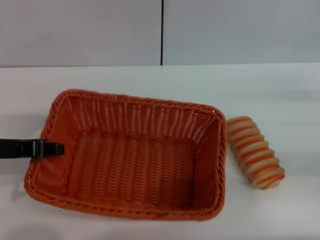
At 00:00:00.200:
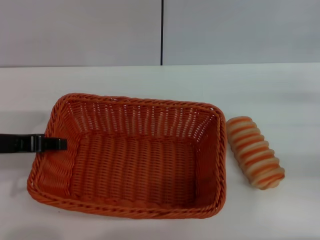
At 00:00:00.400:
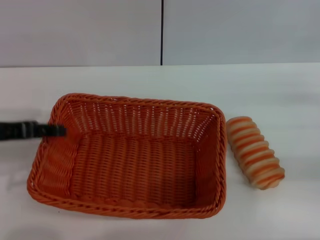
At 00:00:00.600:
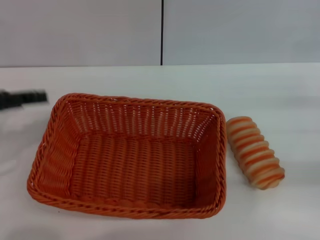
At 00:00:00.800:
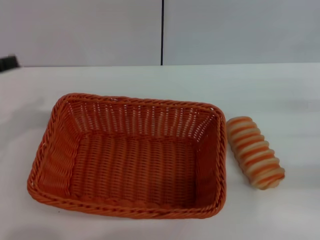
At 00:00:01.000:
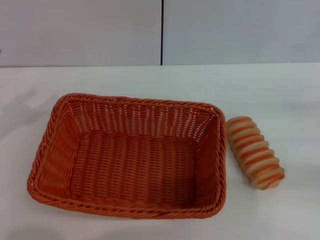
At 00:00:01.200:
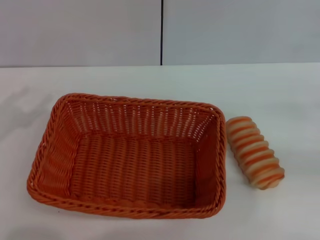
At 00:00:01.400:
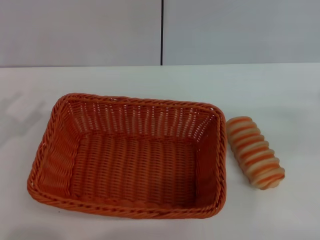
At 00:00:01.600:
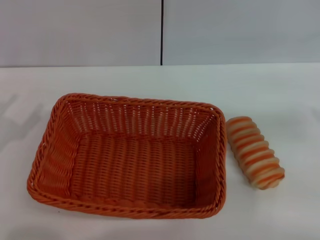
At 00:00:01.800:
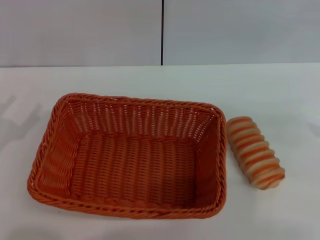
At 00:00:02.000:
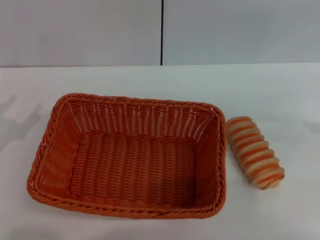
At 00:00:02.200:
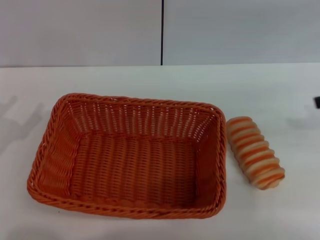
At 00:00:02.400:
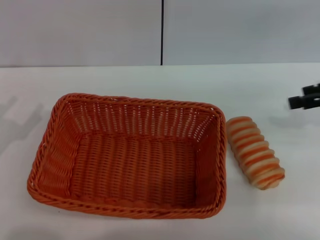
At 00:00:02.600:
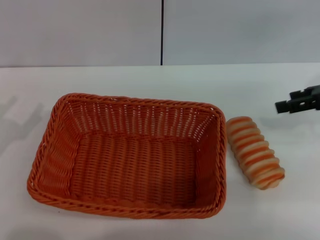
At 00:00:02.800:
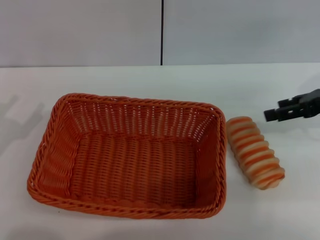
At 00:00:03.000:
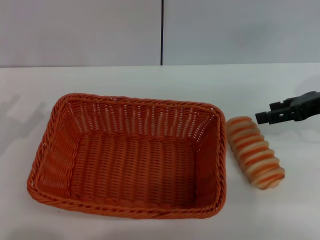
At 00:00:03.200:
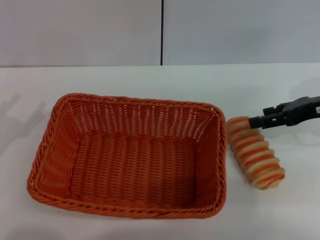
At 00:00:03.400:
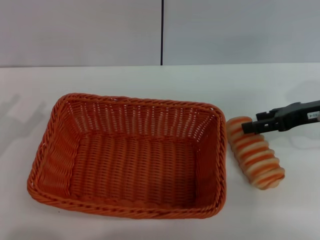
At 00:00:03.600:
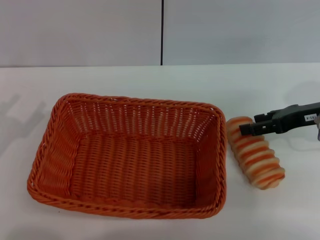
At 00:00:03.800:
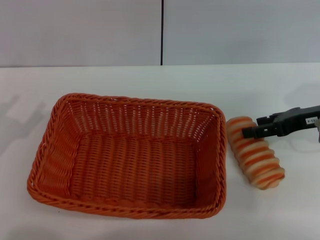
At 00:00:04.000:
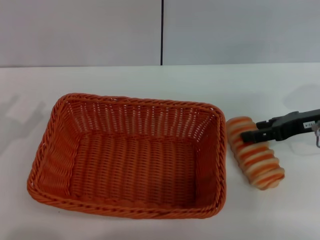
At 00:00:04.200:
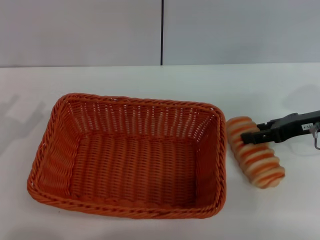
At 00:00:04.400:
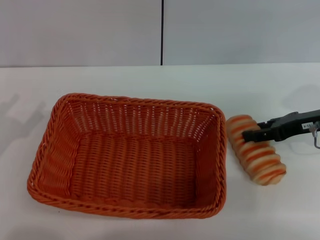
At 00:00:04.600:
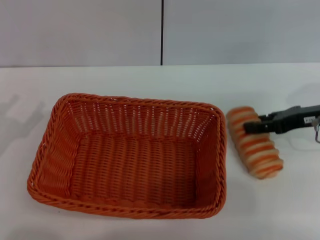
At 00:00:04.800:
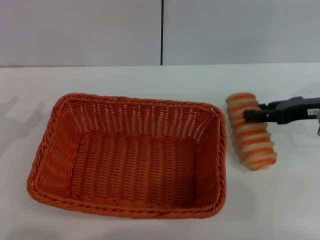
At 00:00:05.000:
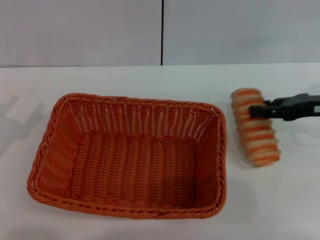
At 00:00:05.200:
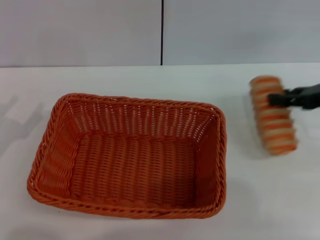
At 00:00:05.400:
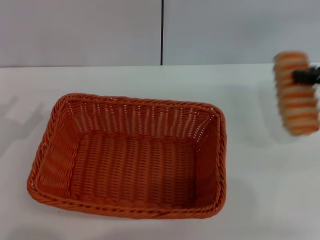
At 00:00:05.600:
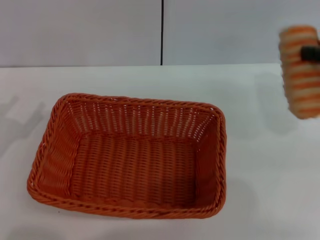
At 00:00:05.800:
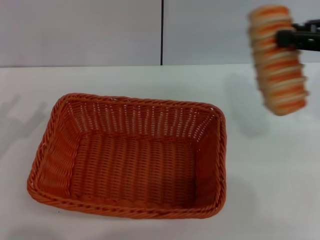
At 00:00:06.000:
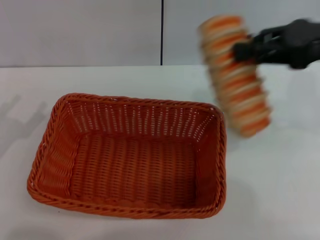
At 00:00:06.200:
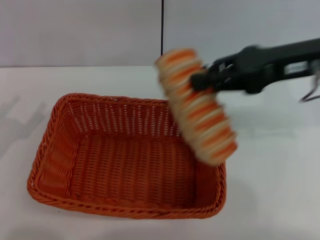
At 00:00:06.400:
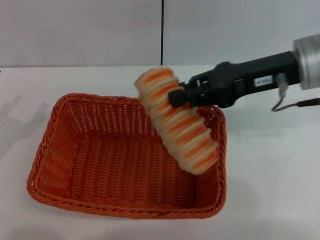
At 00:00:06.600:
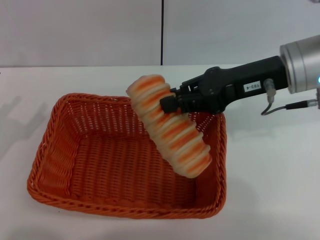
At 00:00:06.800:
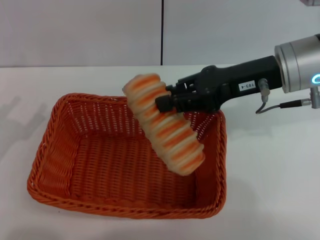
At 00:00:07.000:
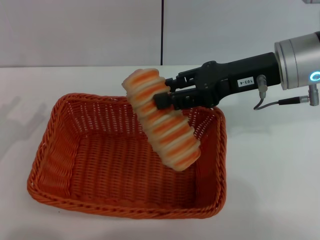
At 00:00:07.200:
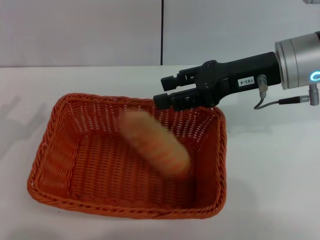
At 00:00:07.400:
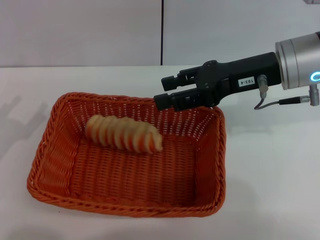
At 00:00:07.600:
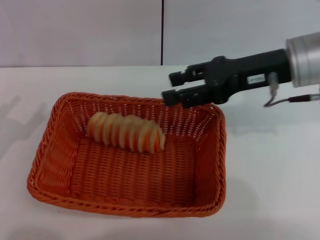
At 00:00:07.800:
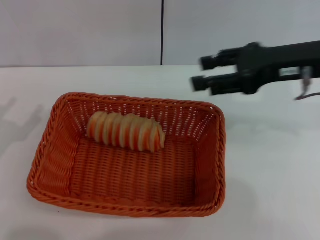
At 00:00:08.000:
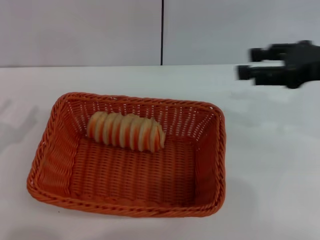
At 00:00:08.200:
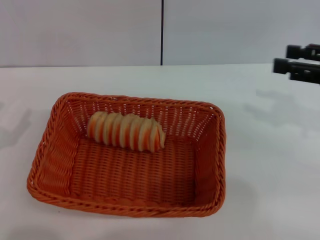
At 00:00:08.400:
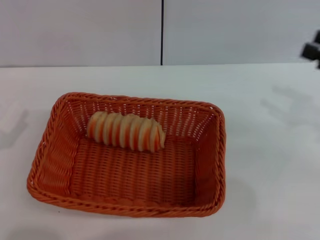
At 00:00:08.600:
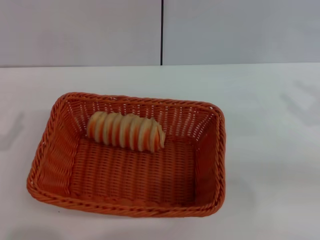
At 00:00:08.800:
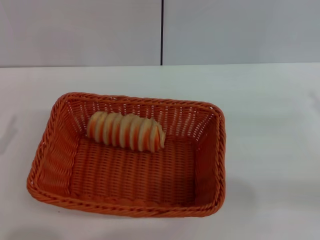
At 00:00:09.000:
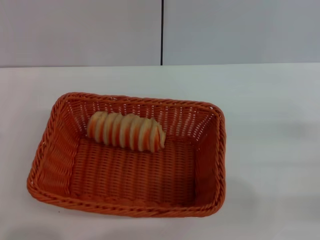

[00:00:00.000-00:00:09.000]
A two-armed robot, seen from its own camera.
Step, 00:00:00.600 to 00:00:05.000: Pick up the long bread with the right gripper.
Step, 00:00:05.200 to 00:00:07.400: Place the long bread into the light basket with the right gripper.
00:00:00.000 to 00:00:01.600: The left gripper travels to the left and downward by roughly 10 cm, and opens; the right gripper moves upward, roughly 10 cm.
00:00:01.600 to 00:00:03.000: The right gripper moves to the left, forward and downward, approximately 15 cm.
00:00:03.000 to 00:00:04.400: The grippers make only small movements.
00:00:04.400 to 00:00:06.000: The right gripper moves upward, approximately 15 cm, and closes its fingers.
00:00:06.000 to 00:00:07.600: The right gripper is displaced to the left by about 5 cm, and opens its fingers.
00:00:07.600 to 00:00:09.000: The right gripper is displaced to the right, backward and downward by approximately 25 cm; the left gripper heads backward, covering some 5 cm.
